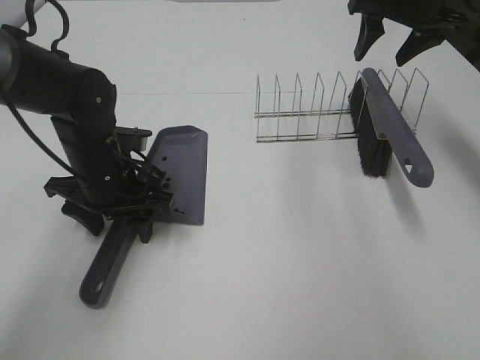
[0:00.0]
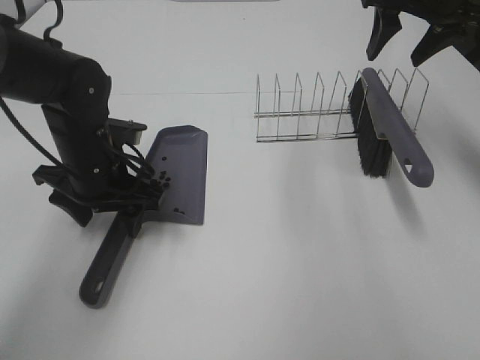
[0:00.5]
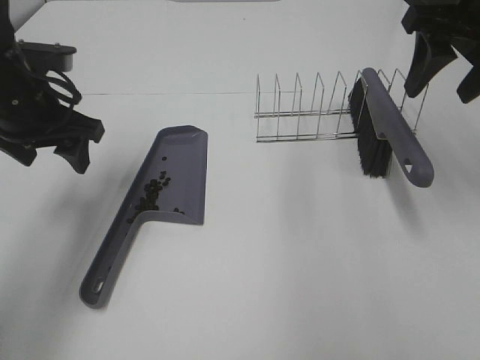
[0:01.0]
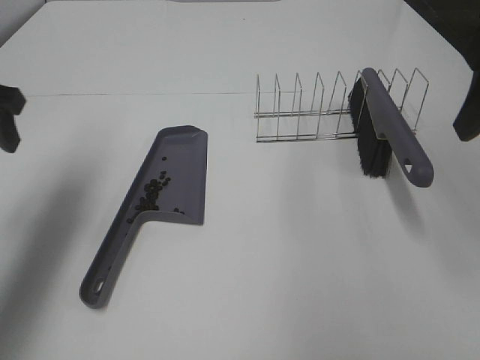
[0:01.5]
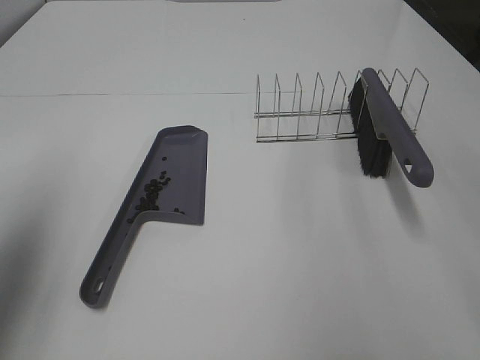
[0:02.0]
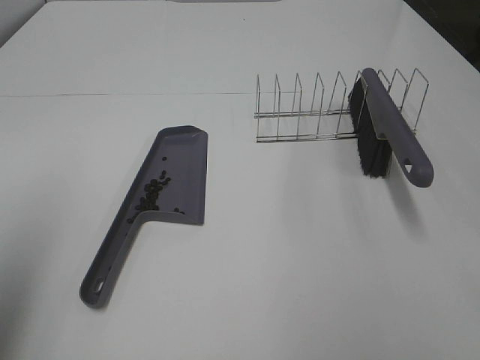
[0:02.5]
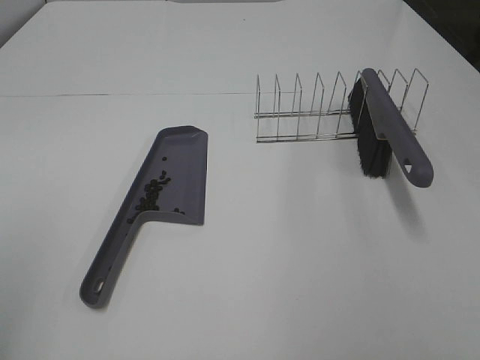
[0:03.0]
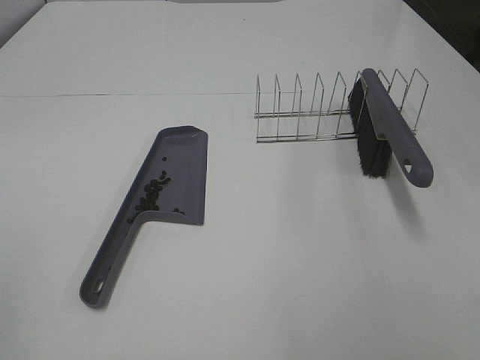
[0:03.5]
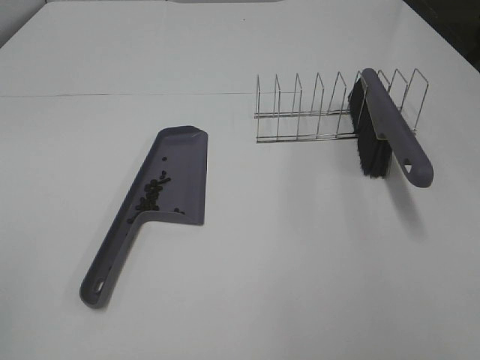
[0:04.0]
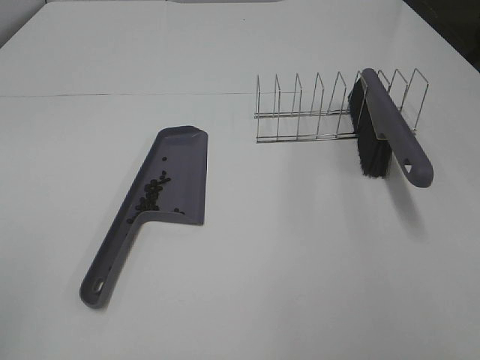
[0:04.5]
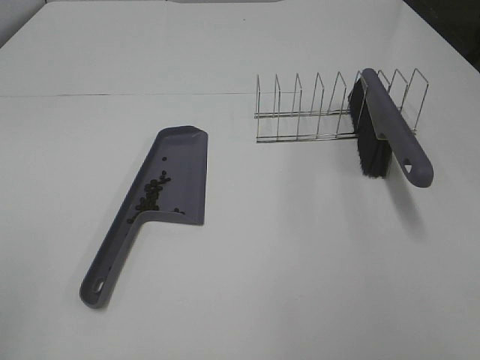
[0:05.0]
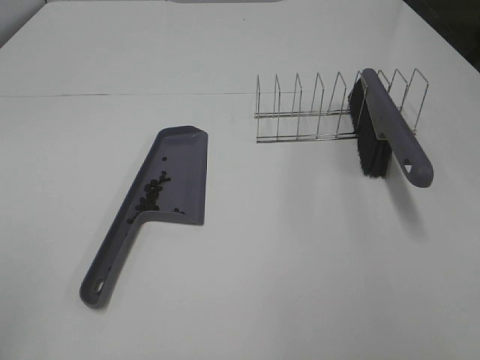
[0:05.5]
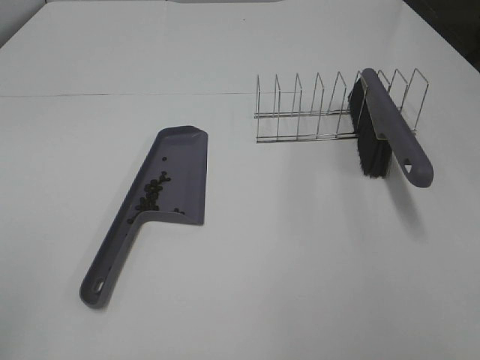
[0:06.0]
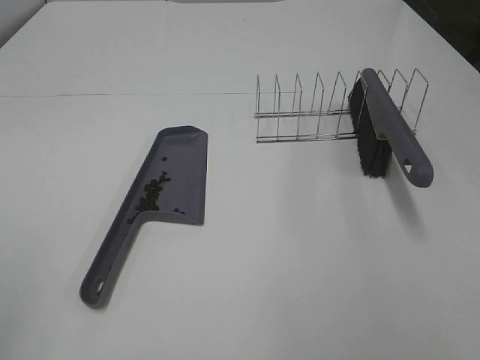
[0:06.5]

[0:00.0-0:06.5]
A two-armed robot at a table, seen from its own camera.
Task of the whole recording: Sweep Coffee Bean.
0:00.0 to 0:02.0: The left gripper heads upward, to the left and backward, covering some 30 cm. The right gripper shifts about 35 cm backward.
0:02.0 to 0:04.5: The left gripper goes some 20 cm backward.
0:04.5 to 0:06.5: Neither gripper changes place.

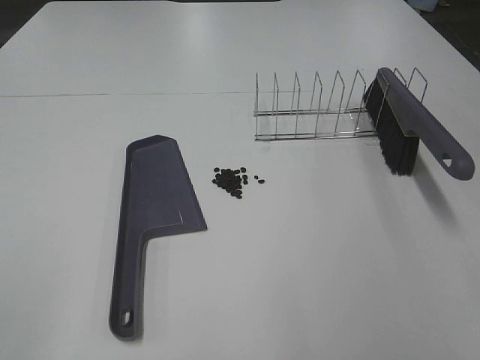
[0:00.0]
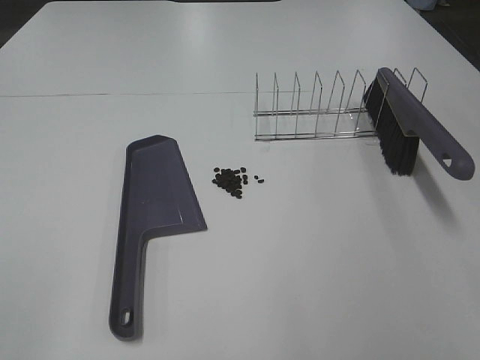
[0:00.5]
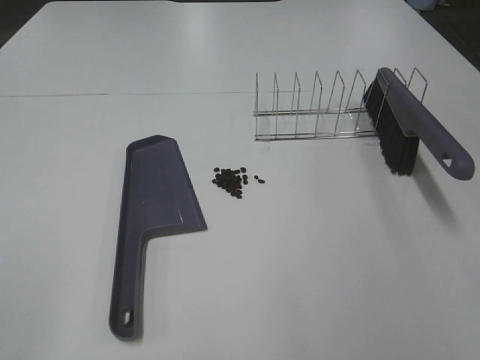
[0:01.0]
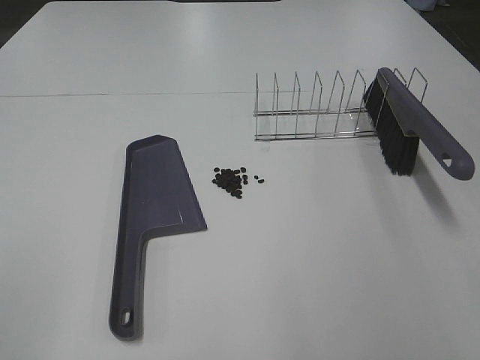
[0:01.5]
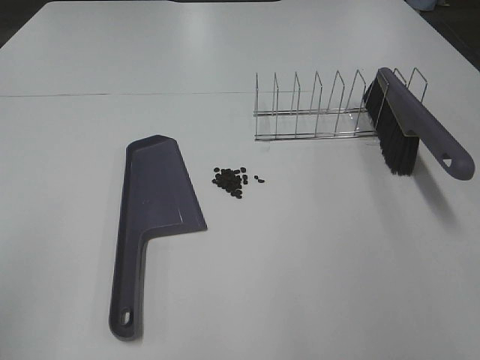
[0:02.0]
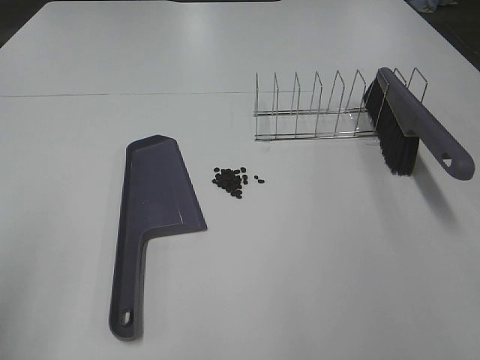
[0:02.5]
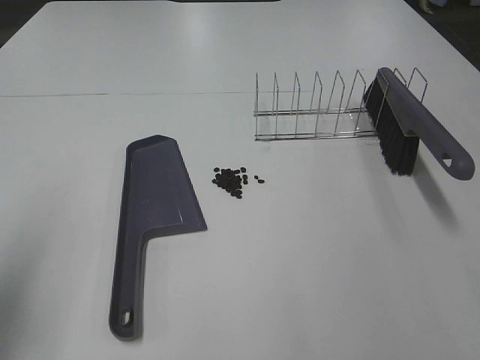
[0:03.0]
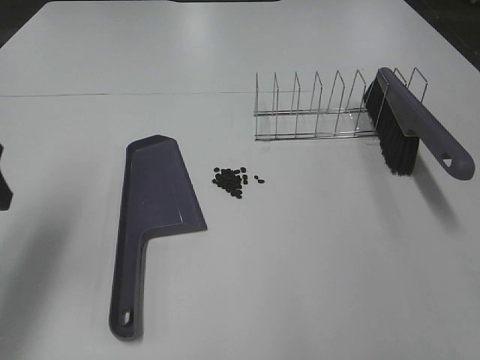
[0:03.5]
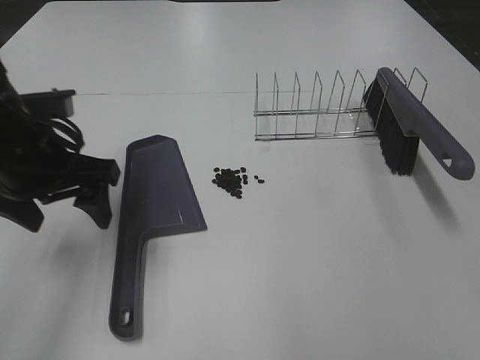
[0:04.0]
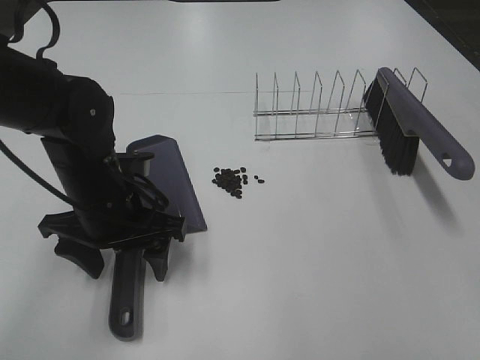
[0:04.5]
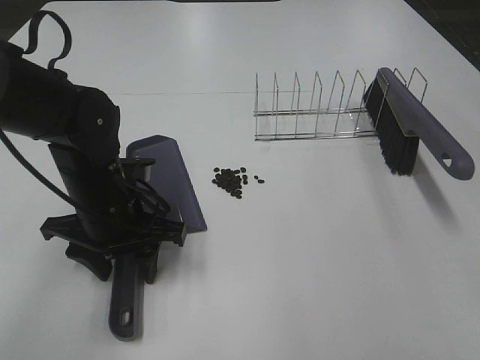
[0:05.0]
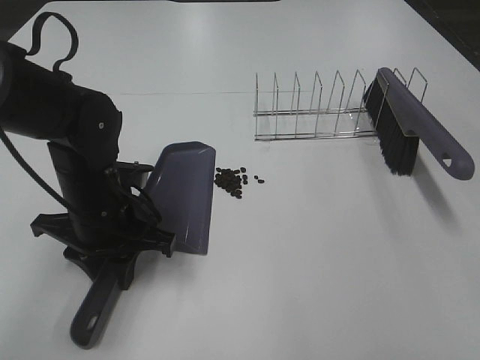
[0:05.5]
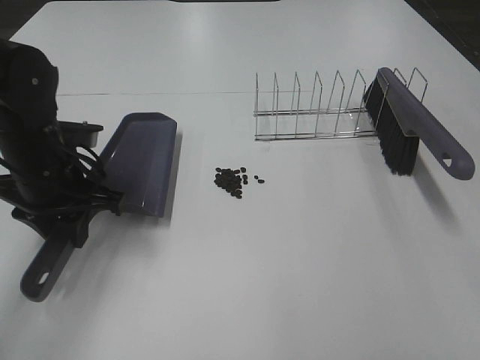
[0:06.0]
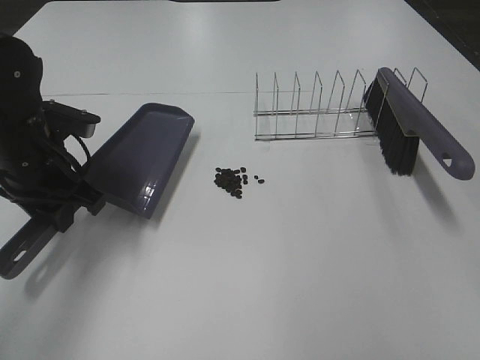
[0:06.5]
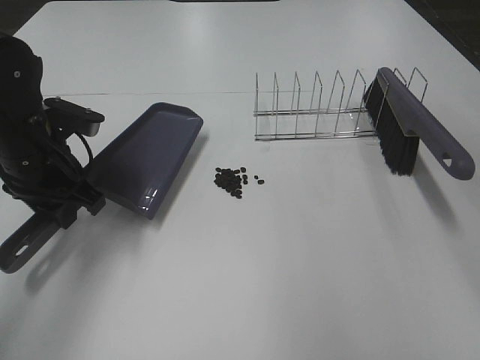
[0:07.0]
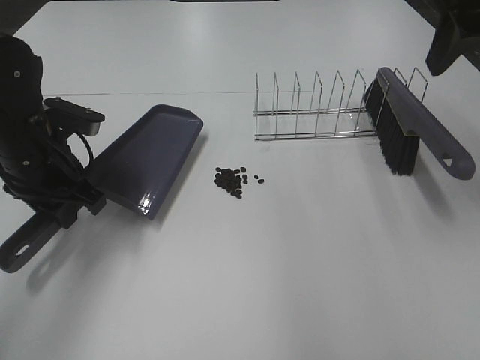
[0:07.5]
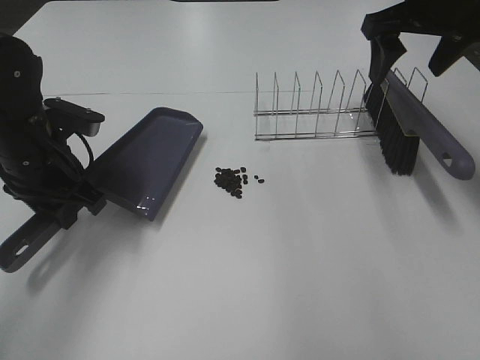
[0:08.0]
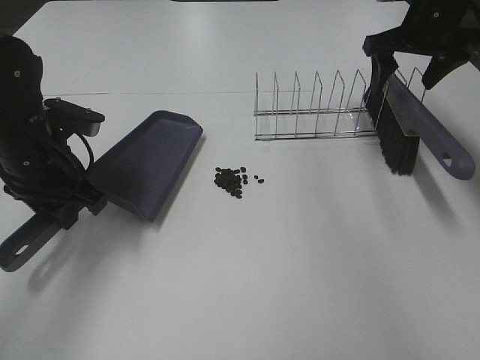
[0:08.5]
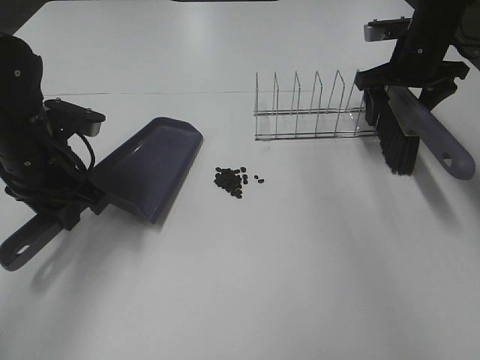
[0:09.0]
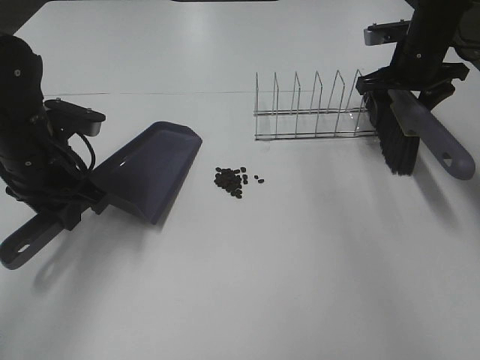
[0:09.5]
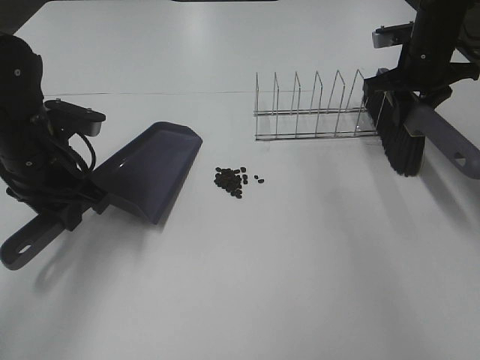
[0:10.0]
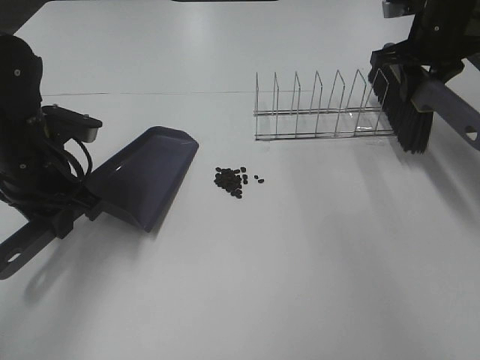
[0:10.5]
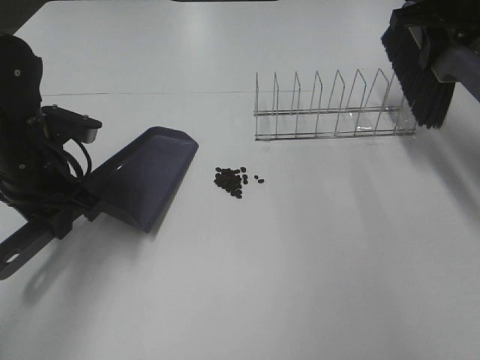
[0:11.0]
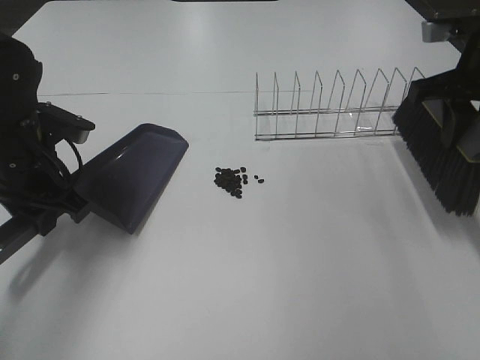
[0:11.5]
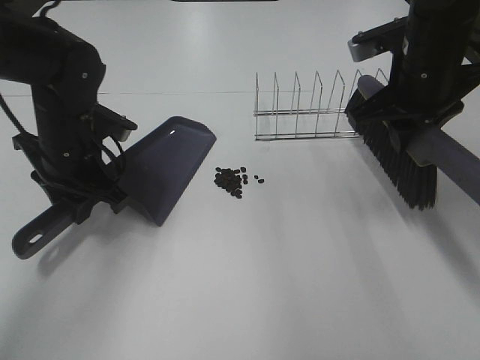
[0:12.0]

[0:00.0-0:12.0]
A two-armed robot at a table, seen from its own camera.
Task of the whole recording: Sweep Coffee Bean.
Step, 0:00.0 to 0:05.0: Left hand: grab the dustpan.
Step, 0:06.0 to 0:09.5: Right hand:grab the broom.
0:02.0 to 0:04.0: The left gripper is displaced forward, to the right and downward by approximately 25 cm.
0:04.0 to 0:06.0: The left gripper closes up.
0:06.0 to 0:08.0: The right gripper moves forward, about 40 cm.
0:08.0 to 0:10.0: The right gripper is displaced downward, forward and to the right by roughly 15 cm, and closes.
0:10.0 to 0:12.0: The right gripper is displaced backward and to the left by about 15 cm.

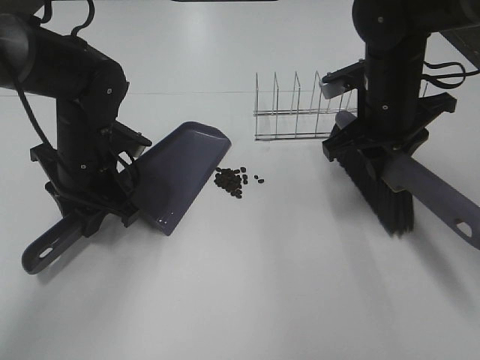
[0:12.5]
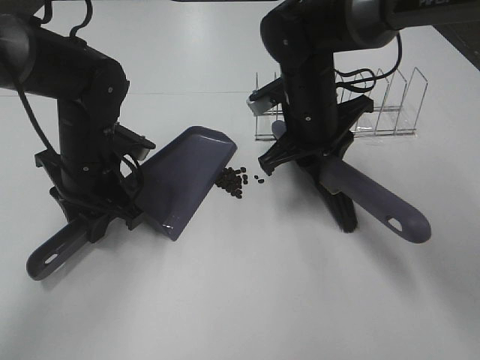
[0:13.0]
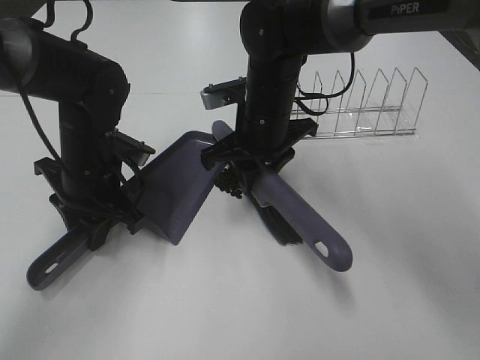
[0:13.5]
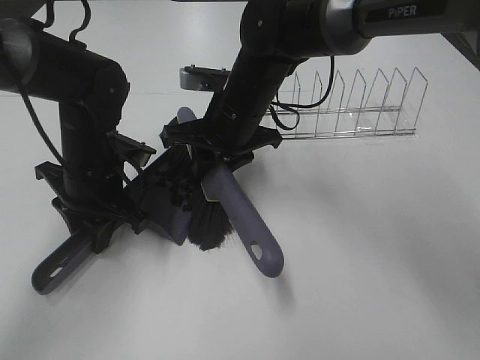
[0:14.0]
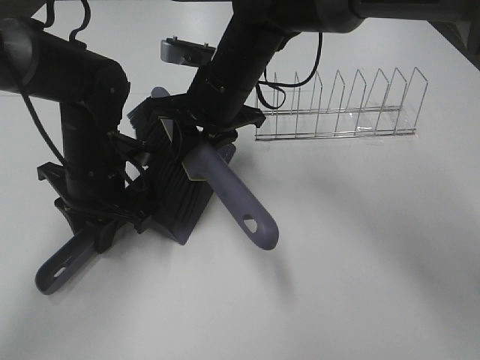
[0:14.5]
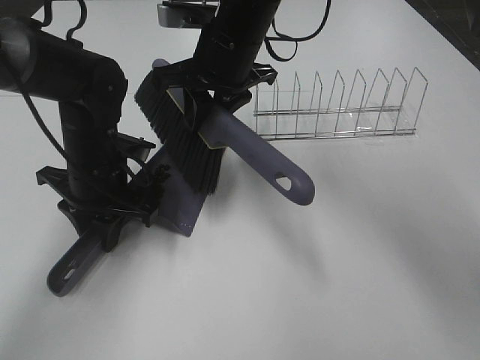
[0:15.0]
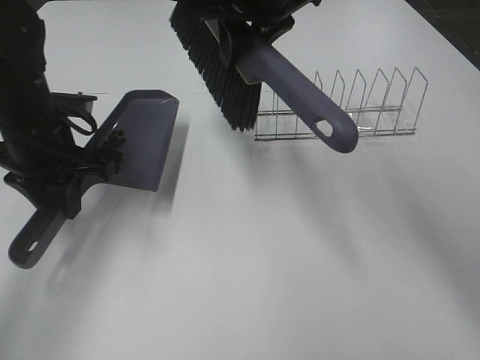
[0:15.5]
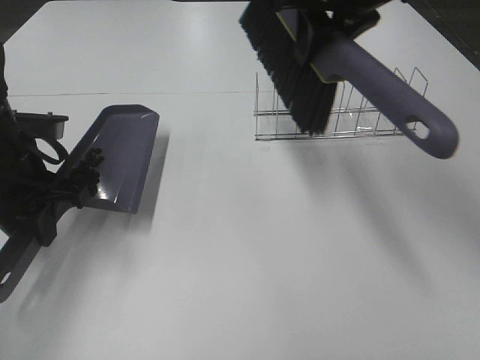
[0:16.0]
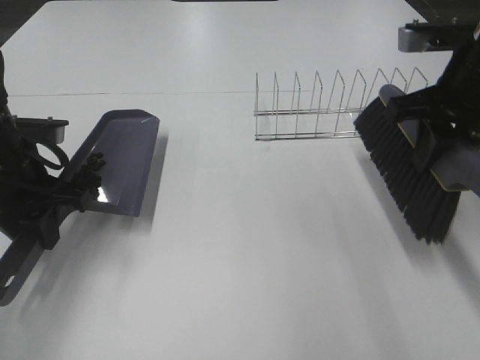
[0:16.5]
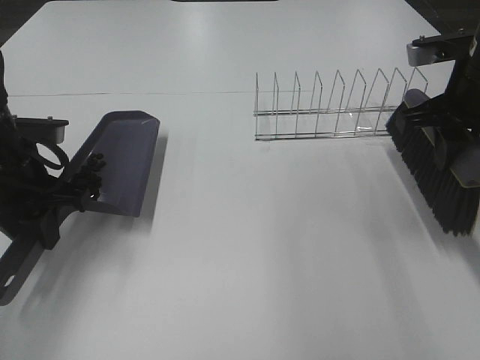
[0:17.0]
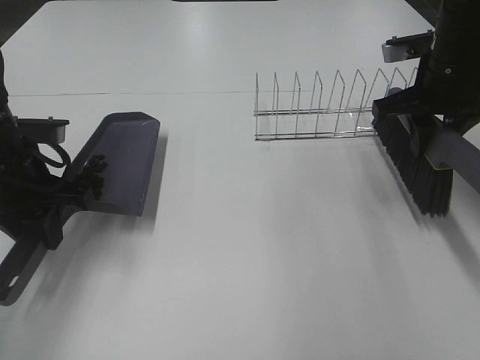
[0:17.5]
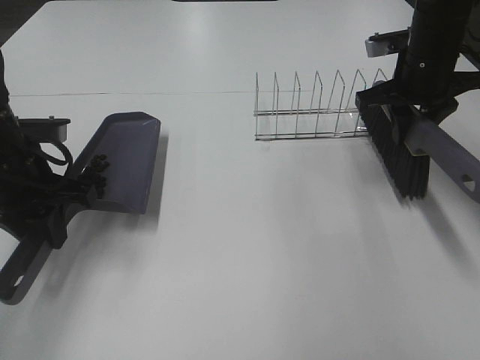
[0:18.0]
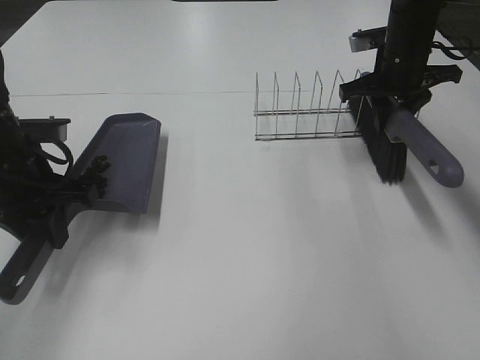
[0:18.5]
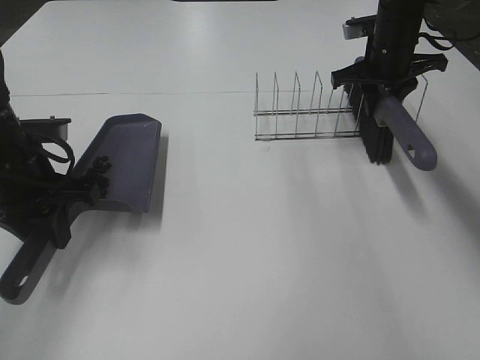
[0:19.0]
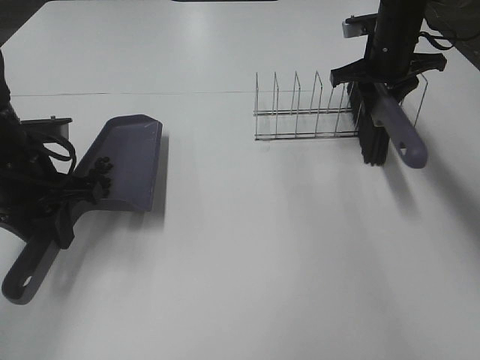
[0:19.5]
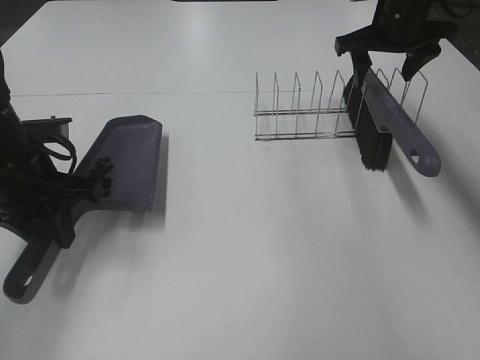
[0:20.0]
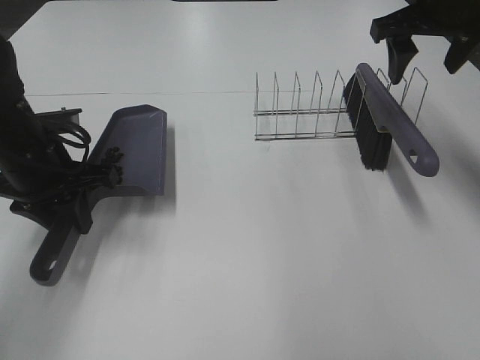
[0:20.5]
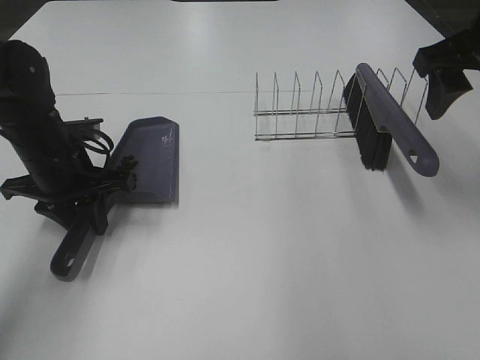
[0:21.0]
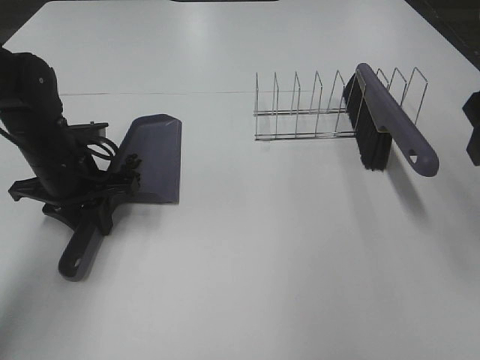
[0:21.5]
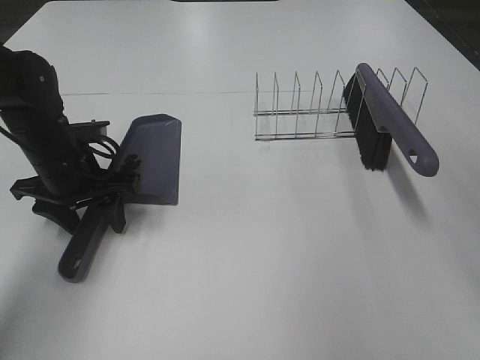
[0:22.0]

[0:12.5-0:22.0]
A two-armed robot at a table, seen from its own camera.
Task of the whole recording: Sweep Coffee Bean.
Step, 0:12.5 to 0:14.5: Right hand:sweep the coffee beans into the dustpan.
Step, 0:15.0 to 0:19.5: Right hand:place the broom on the rack.
Step, 0:20.0 to 0:22.0: Left hand:place the dustpan on the table.
0:12.5 to 0:14.5: The right gripper travels to the left by roughly 15 cm.
0:14.5 to 0:16.5: The right gripper travels to the right by approximately 25 cm. The left gripper travels to the left by some 10 cm.
0:16.5 to 0:18.0: The right gripper travels forward and downward by roughly 15 cm.
0:18.0 to 0:20.0: The right gripper goes about 5 cm forward, and opens up.
0:20.0 to 0:22.0: The left gripper shifts some 5 cm forward, and opens its fingers. The right gripper heads backward, covering some 30 cm.
